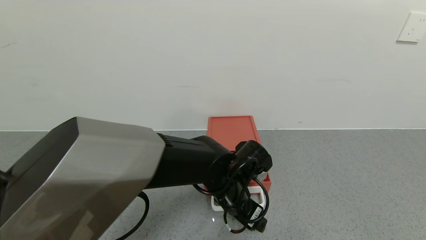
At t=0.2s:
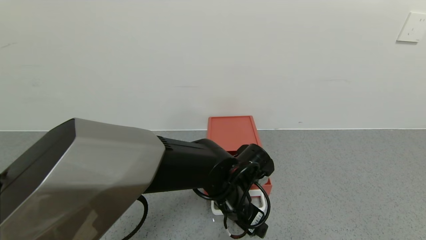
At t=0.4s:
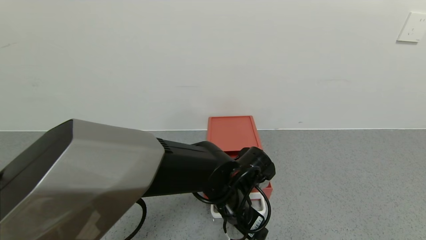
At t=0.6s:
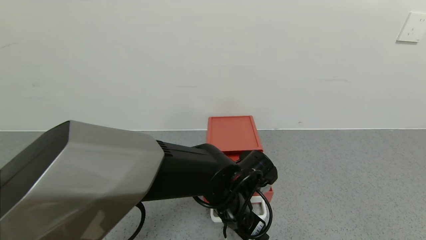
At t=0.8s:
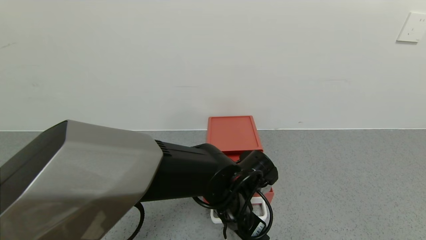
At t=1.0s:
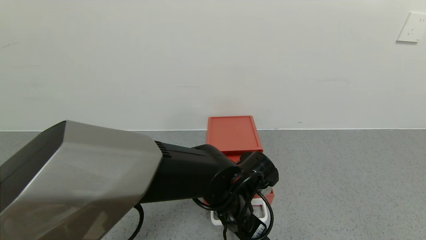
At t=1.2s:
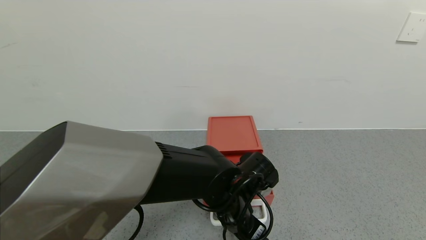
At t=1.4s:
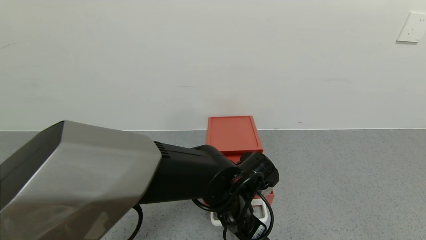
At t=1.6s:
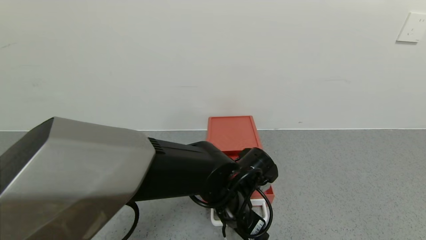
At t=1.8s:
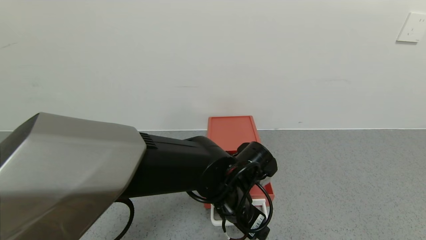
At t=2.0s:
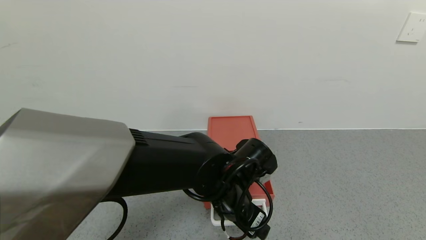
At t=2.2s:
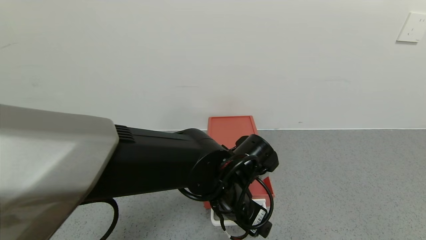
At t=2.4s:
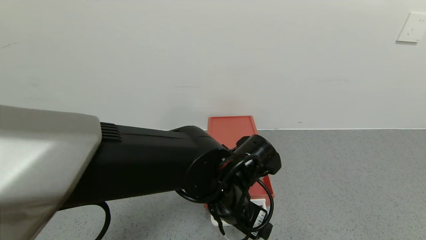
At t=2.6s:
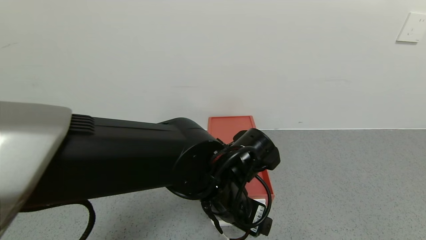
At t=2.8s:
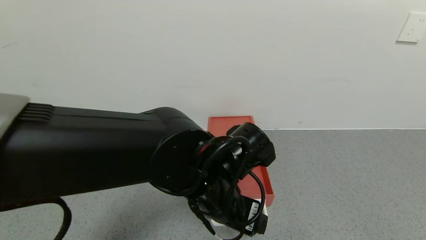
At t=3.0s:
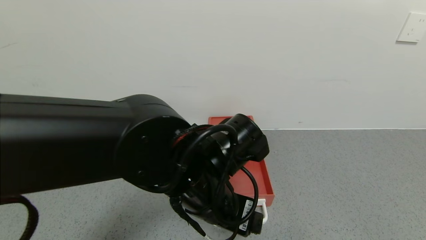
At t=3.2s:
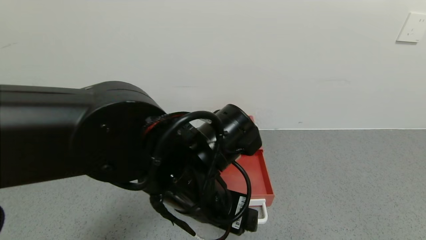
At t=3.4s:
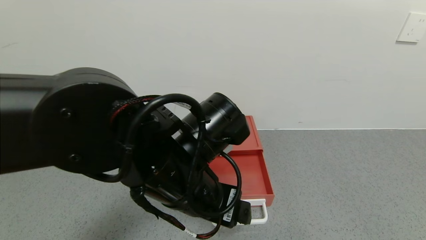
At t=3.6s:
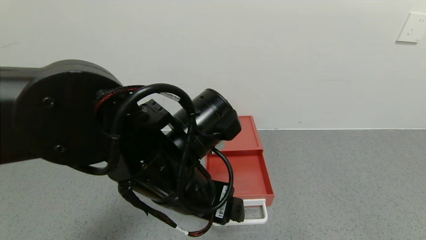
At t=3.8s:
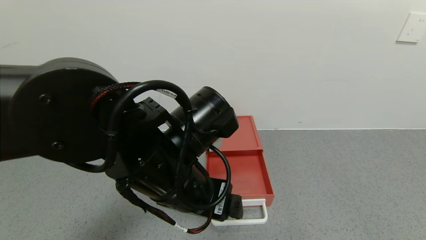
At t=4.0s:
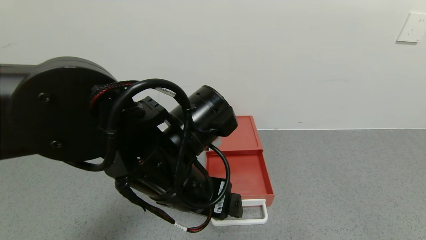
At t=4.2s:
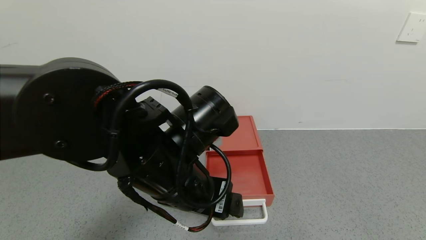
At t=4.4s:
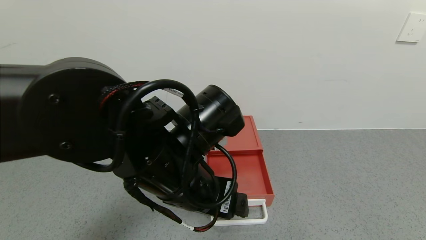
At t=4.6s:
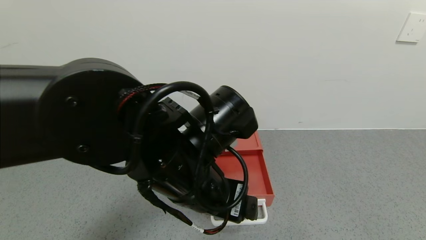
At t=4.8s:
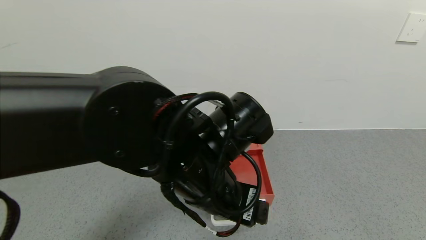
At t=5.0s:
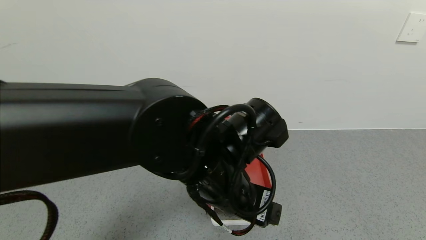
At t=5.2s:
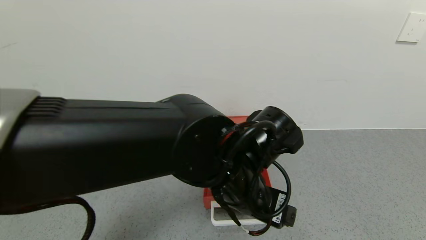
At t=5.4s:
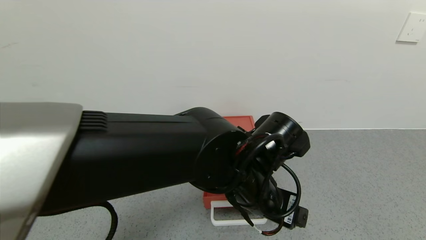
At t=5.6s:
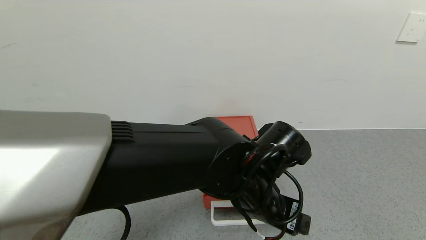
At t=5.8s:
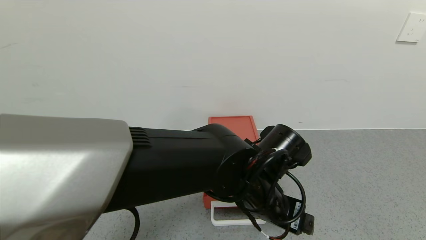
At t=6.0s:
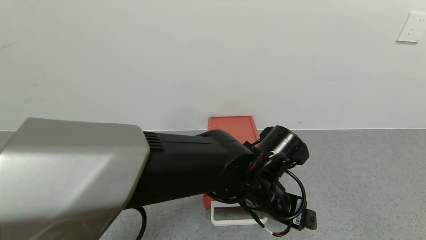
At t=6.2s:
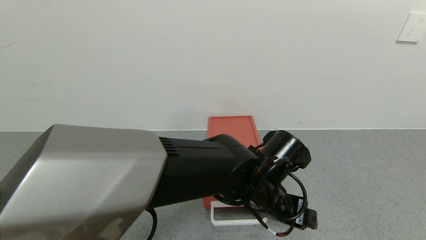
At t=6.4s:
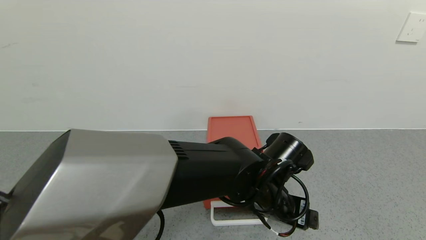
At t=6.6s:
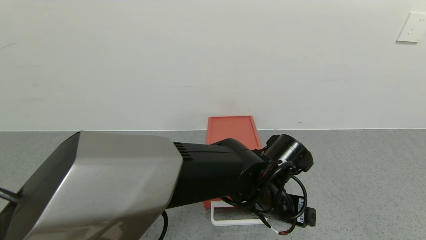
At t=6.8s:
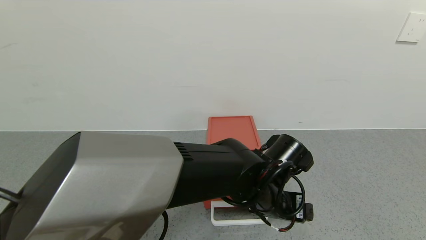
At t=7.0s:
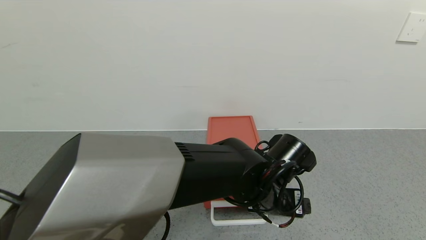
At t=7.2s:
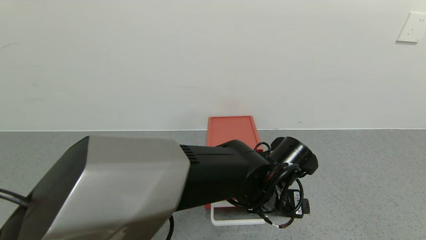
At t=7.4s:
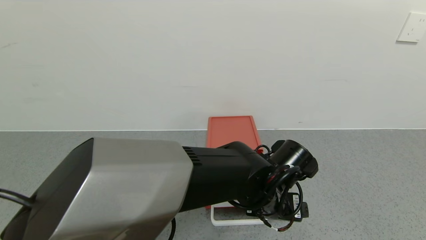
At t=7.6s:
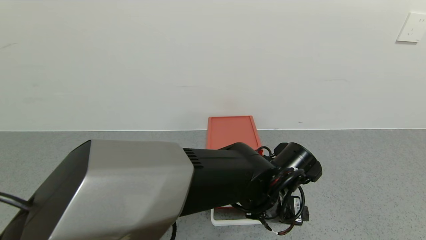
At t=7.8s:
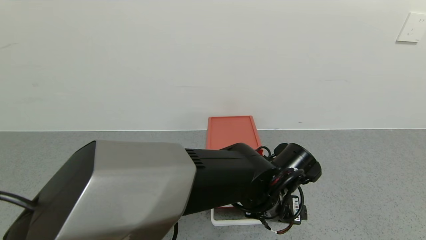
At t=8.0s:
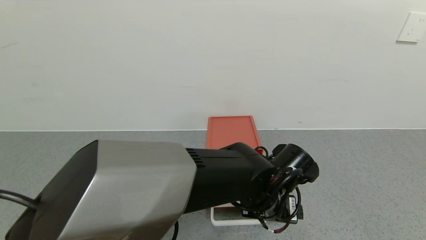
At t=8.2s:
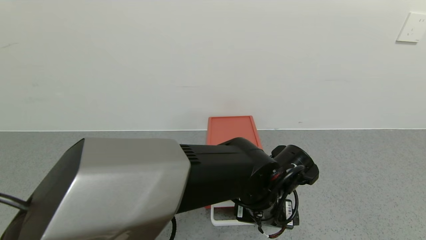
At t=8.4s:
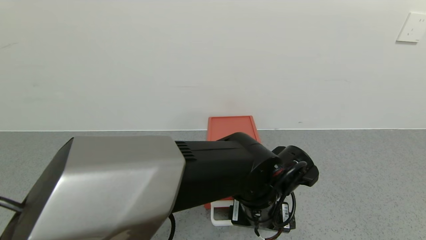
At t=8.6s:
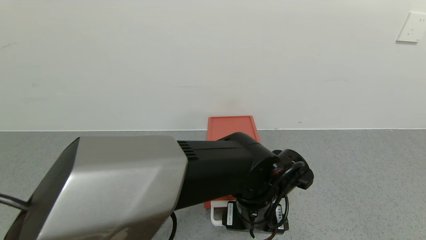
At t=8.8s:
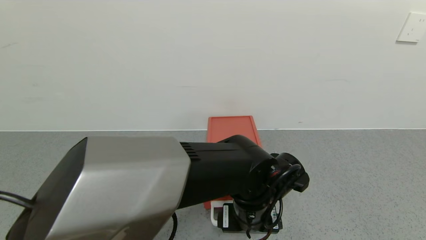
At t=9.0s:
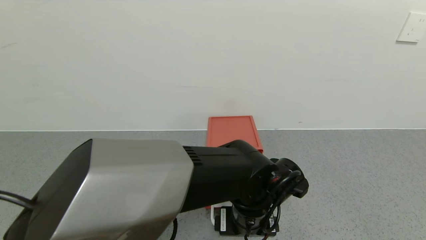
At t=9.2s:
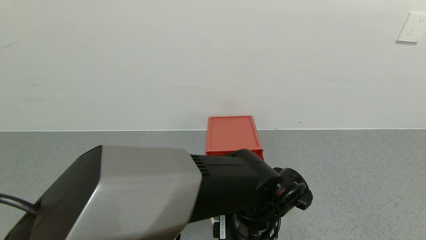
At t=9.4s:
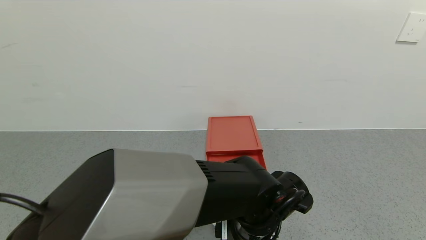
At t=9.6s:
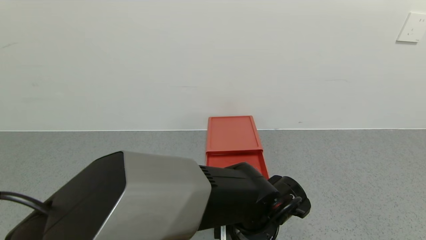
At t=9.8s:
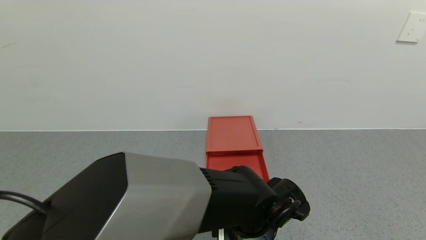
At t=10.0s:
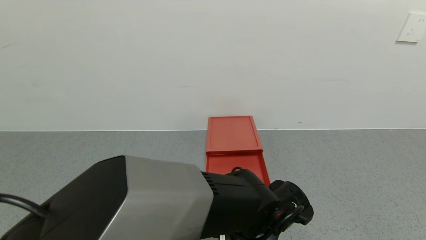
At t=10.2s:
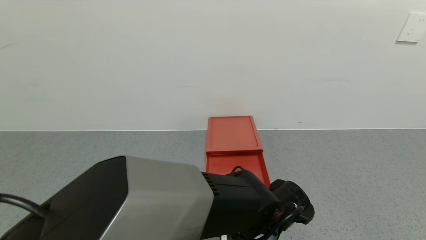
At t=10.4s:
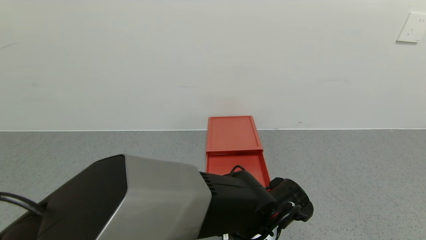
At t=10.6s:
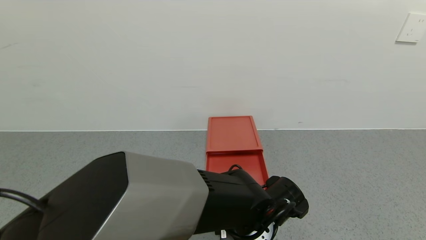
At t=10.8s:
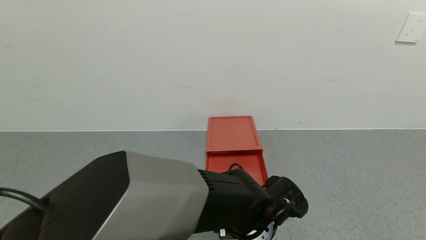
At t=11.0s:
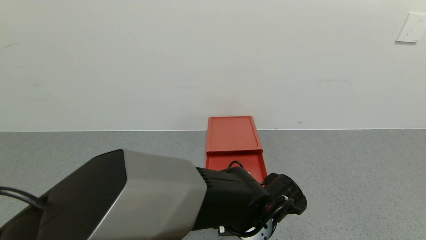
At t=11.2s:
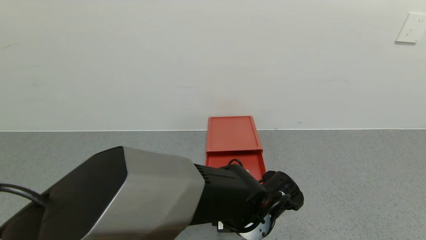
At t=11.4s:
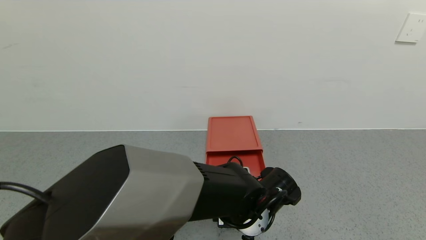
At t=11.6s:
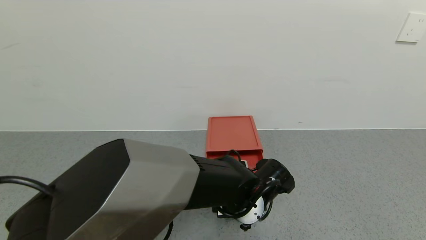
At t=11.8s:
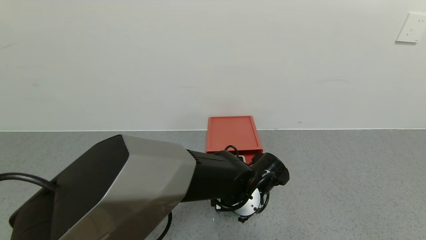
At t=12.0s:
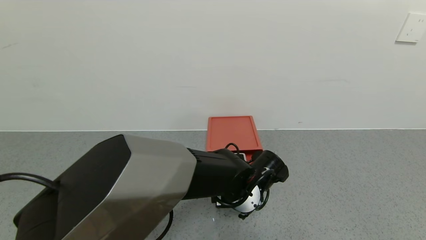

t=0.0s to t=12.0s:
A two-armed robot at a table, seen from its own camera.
Task of the whole recording: use the gripper to open the drawer and close the red drawer.
Step, t=0.0s to t=2.2s: Open the red drawer with the left gripper.
t=0.0s to t=1.6s: The grippers make only small movements.
t=1.6s to t=3.0s: The left gripper goes approximately 10 cm upward.
t=4.4s to t=6.0s: The left gripper is displaced to the right and downward by approximately 15 cm.
t=9.0s to t=10.4s: The grippers move only a little.
t=10.4s to t=12.0s: The left gripper travels forward by roughly 5 cm.

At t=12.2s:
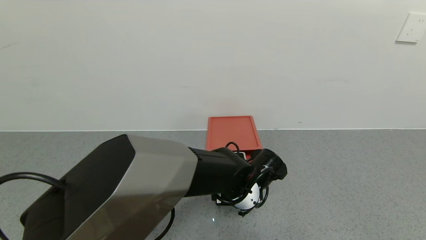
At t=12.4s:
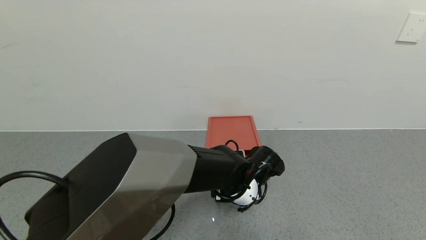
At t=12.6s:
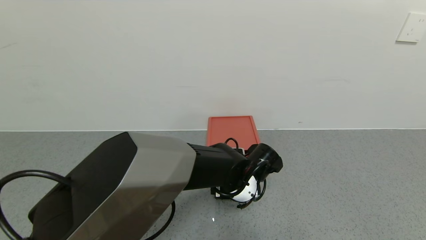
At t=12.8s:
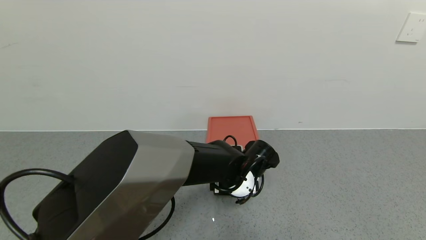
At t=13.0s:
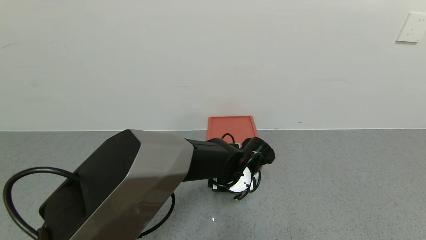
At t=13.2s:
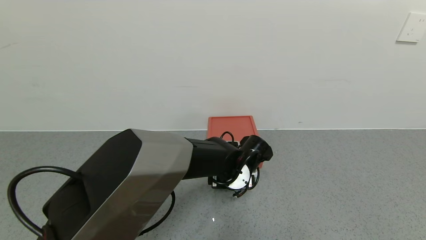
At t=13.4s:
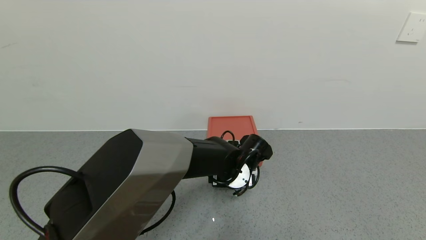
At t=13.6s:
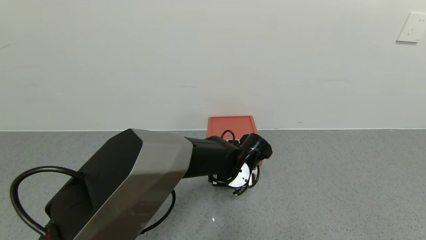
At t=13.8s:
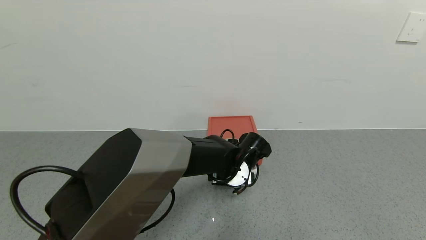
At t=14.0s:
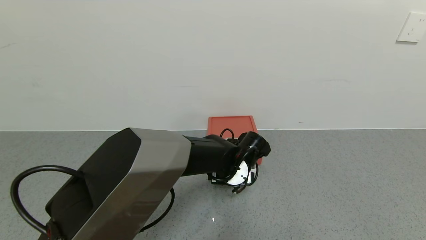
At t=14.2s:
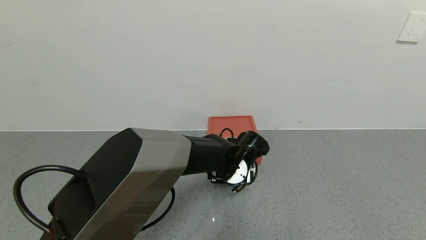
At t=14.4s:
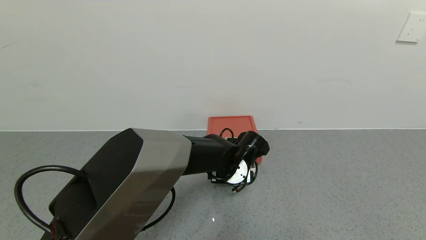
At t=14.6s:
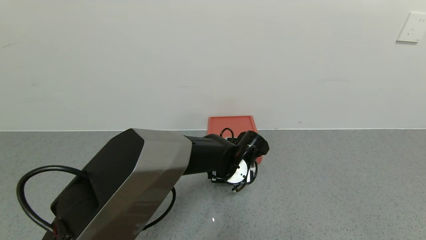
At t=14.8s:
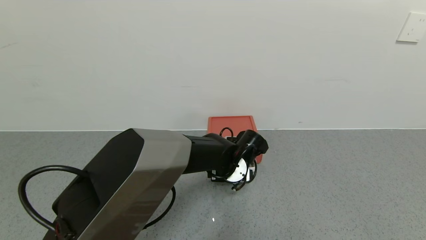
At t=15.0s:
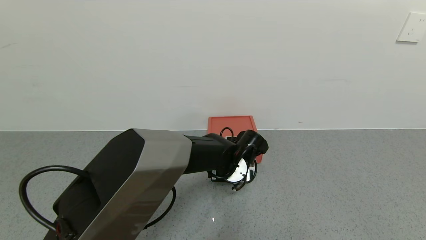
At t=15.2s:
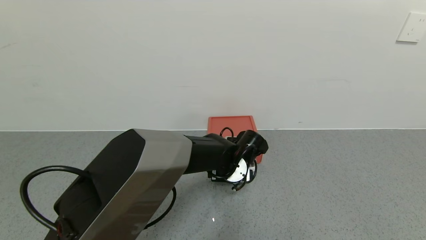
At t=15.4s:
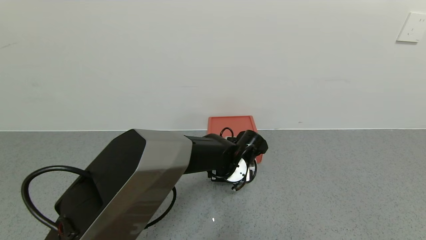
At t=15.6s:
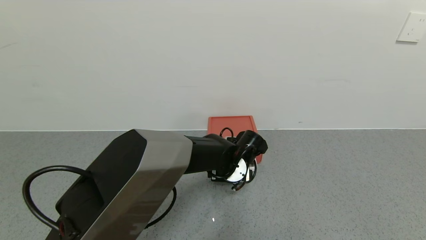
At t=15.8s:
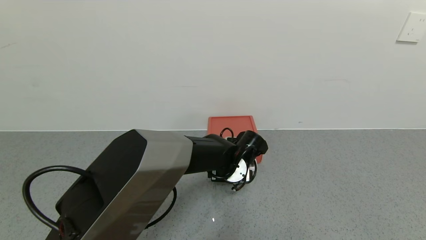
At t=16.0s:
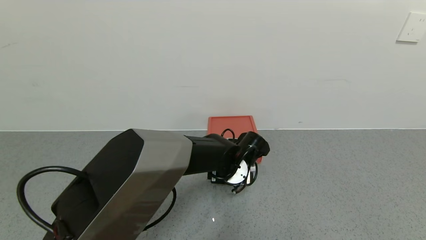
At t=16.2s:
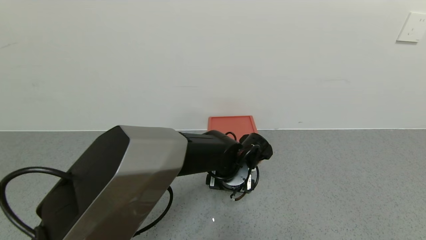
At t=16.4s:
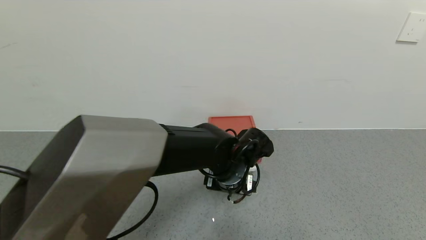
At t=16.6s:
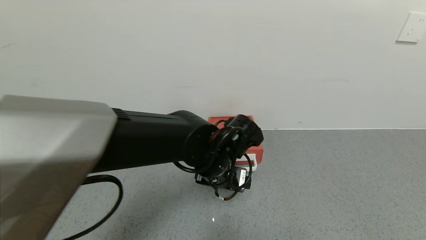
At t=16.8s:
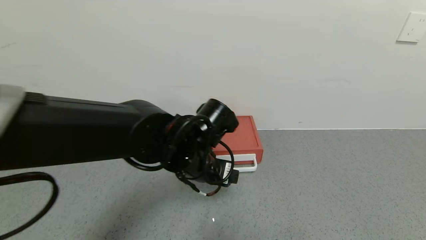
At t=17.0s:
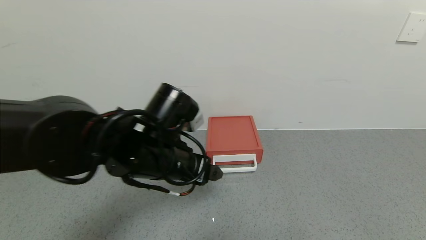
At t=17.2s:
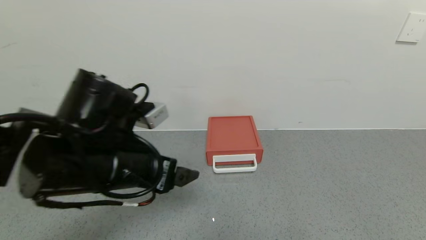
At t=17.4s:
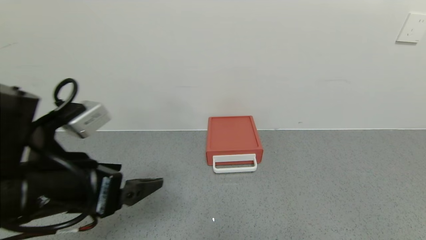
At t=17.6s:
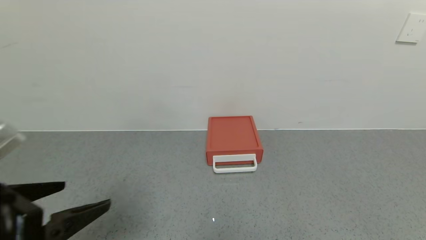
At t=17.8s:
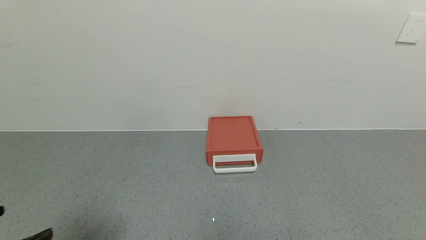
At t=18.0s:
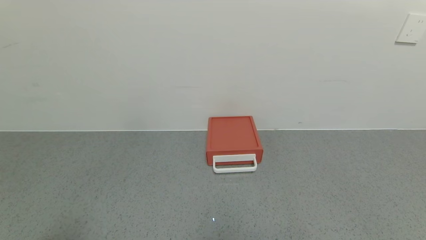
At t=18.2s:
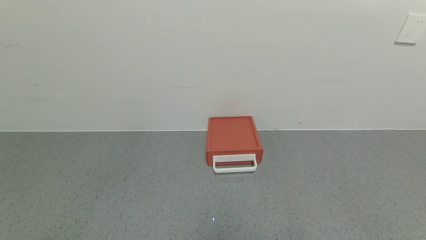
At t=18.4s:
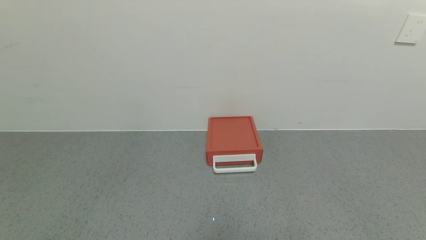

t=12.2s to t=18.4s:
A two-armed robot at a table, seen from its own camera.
Task of the whole recording: use the gripper to open the drawer and close the red drawer.
Step, t=12.2s to t=16.6s: Close the red drawer with the left gripper.
t=12.2s to t=13.8s: There are only small adjustments of the grippers.
t=13.8s to t=15.4s: The grippers make only small movements.
t=15.4s to t=16.8s: The left gripper is displaced upward, backward and to the left by about 15 cm.
t=16.8s to t=18.4s: The left gripper shifts approximately 40 cm backward and to the left.
